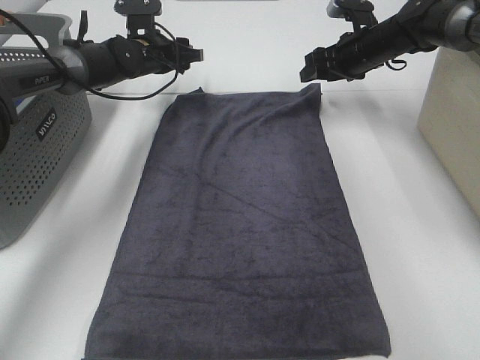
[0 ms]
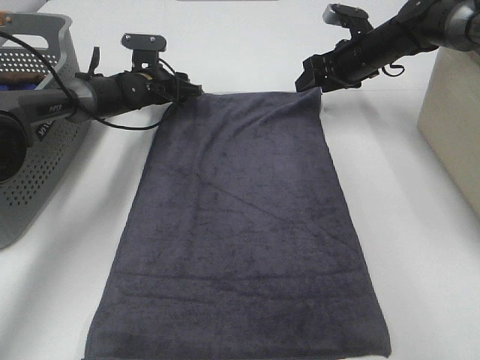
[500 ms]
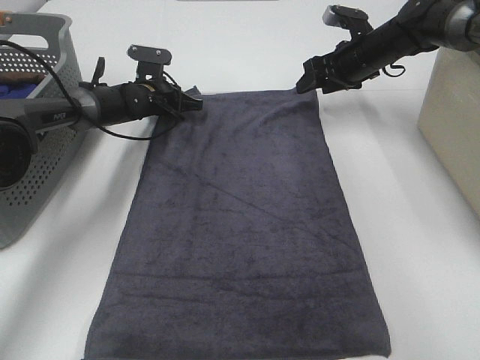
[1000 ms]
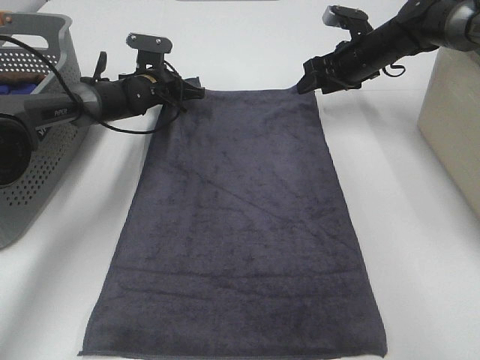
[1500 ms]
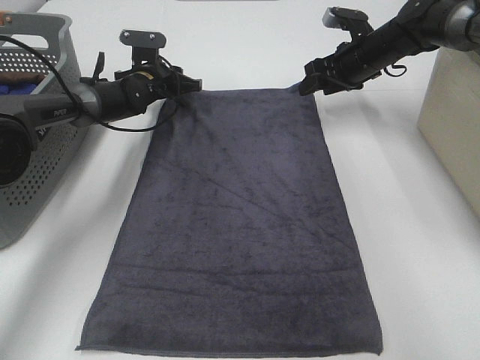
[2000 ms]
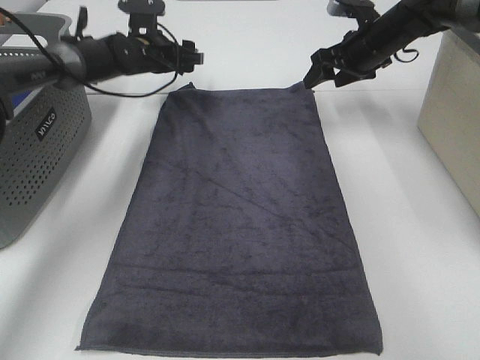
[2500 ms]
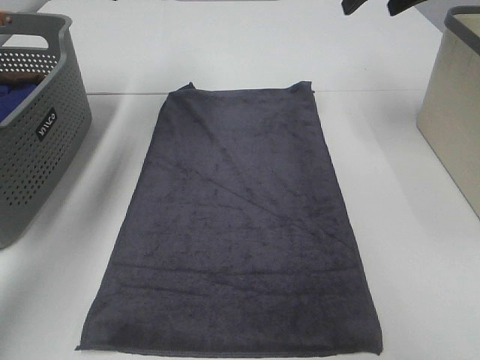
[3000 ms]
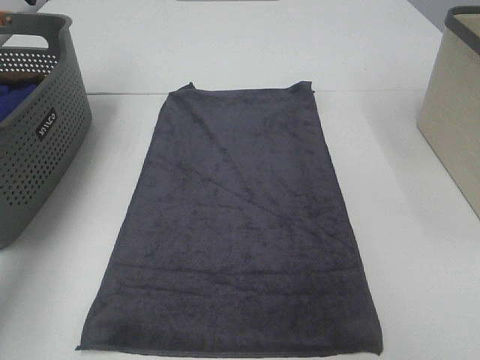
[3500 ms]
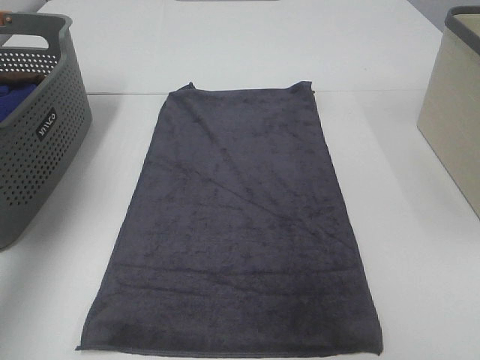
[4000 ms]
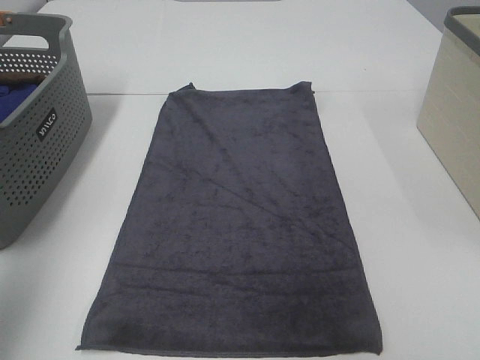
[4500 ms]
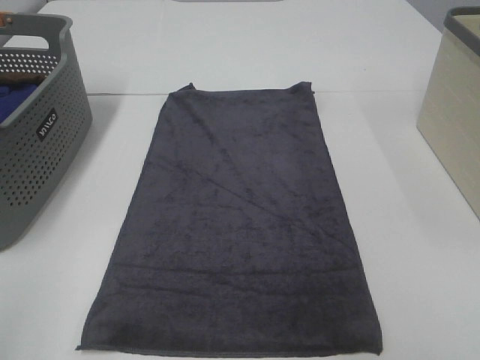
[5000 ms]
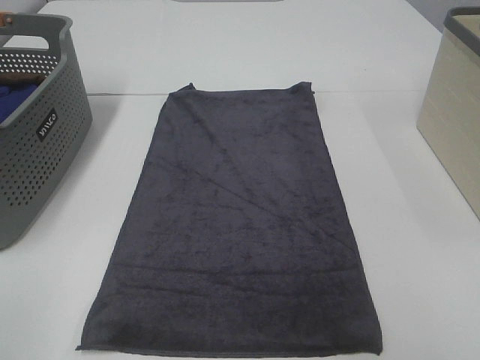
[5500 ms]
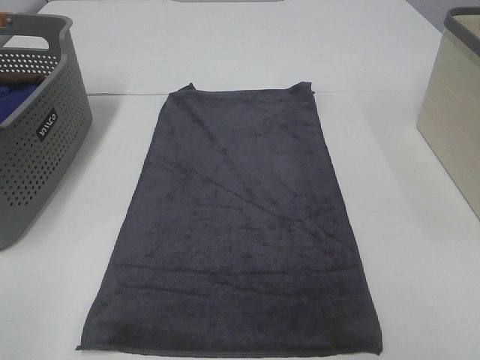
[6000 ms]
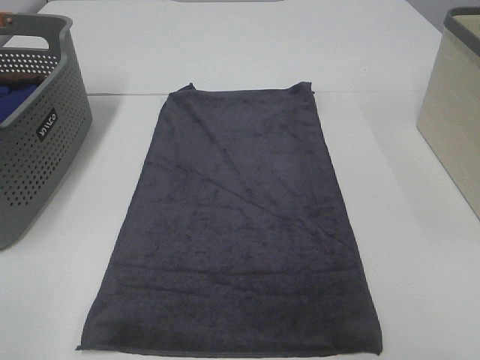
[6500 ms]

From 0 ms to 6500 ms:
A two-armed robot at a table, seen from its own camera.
Task of the whole recording: Remove the towel and place it.
From 0 ms to 2000 ms: The left gripper travels downward by about 5 cm, and closes, then reopens.
From 2000 ms to 4500 ms: The two grippers go roughly 50 cm backward and upward. The left gripper opens.
From 4500 ms to 6500 ms: The left gripper travels backward and downward by approximately 20 cm.

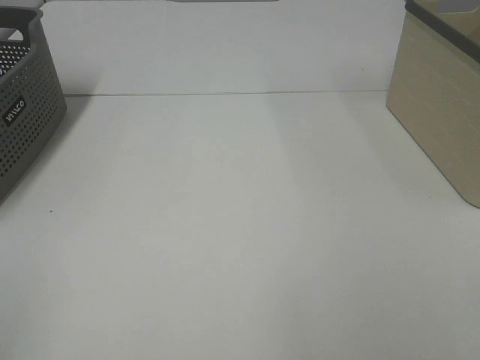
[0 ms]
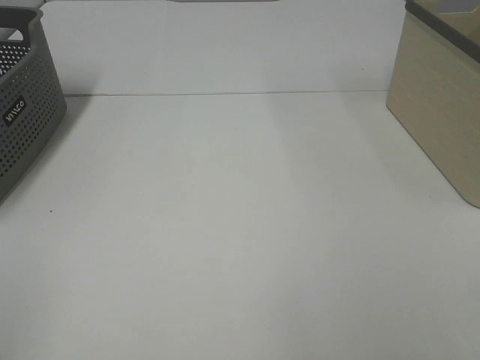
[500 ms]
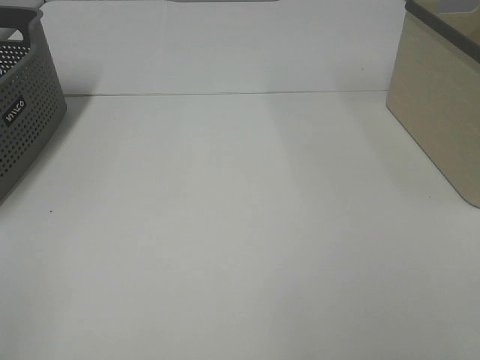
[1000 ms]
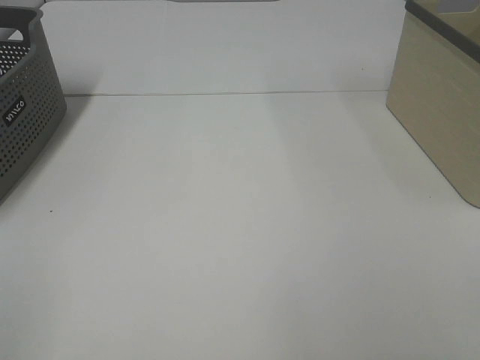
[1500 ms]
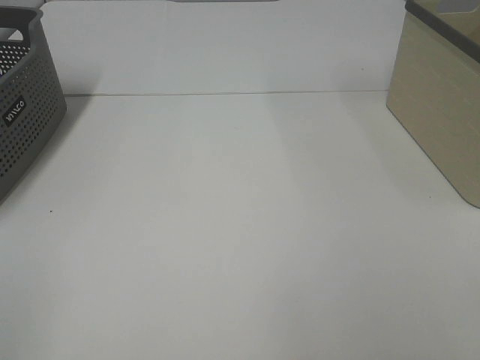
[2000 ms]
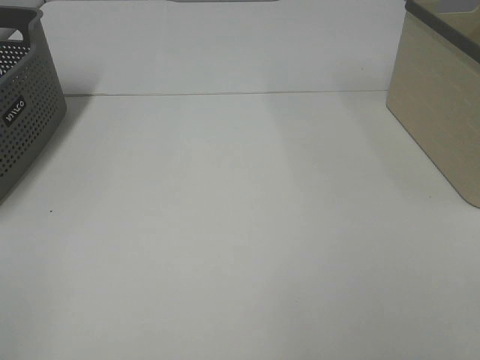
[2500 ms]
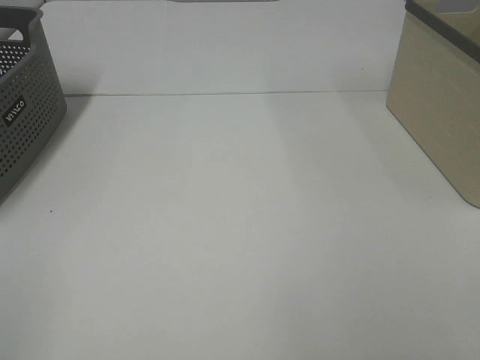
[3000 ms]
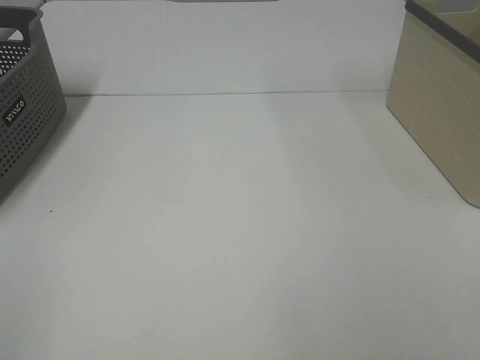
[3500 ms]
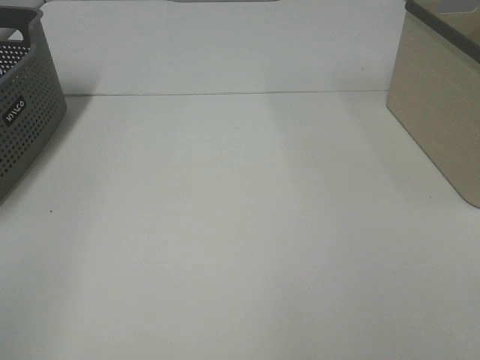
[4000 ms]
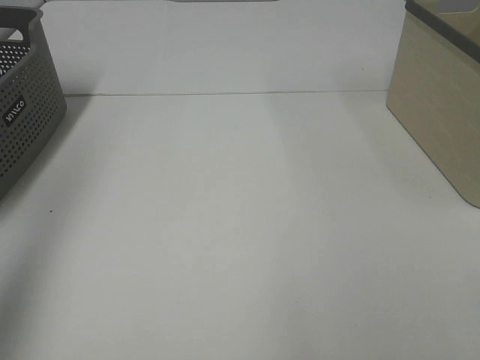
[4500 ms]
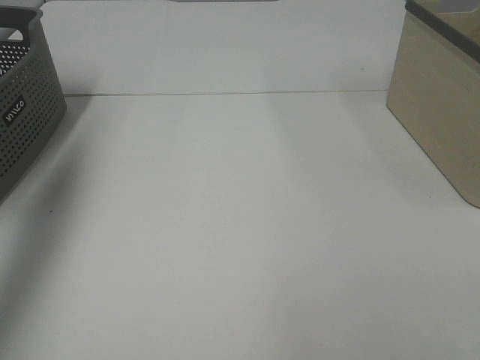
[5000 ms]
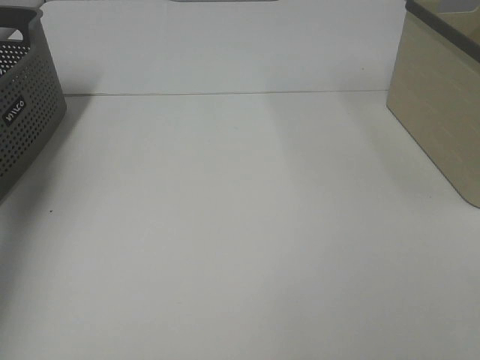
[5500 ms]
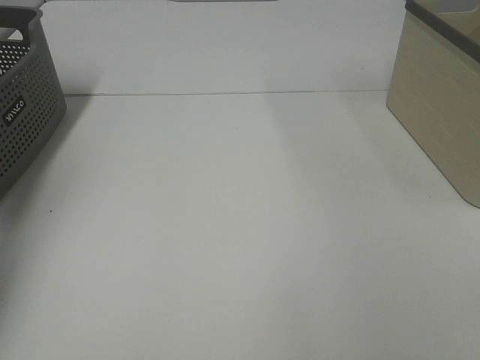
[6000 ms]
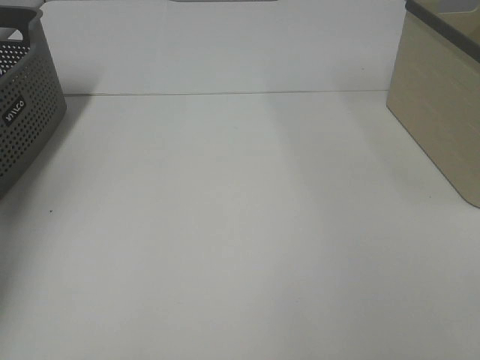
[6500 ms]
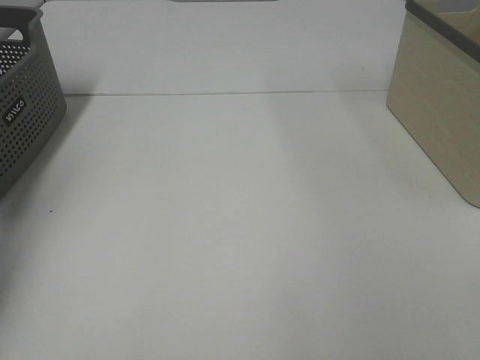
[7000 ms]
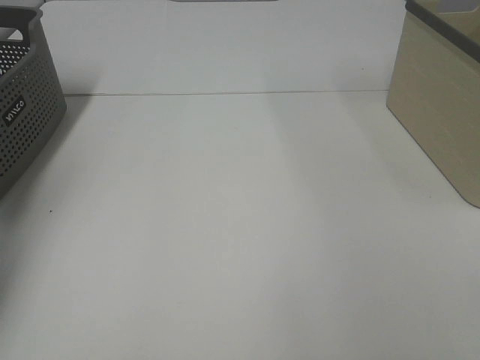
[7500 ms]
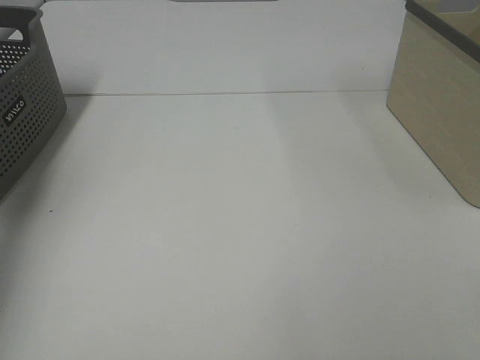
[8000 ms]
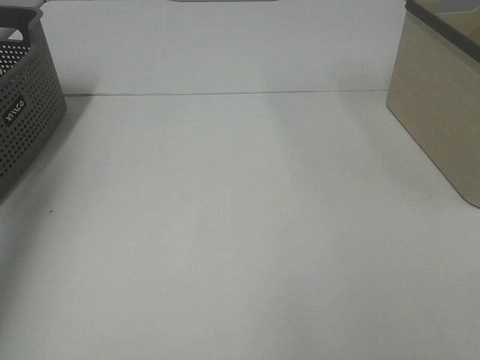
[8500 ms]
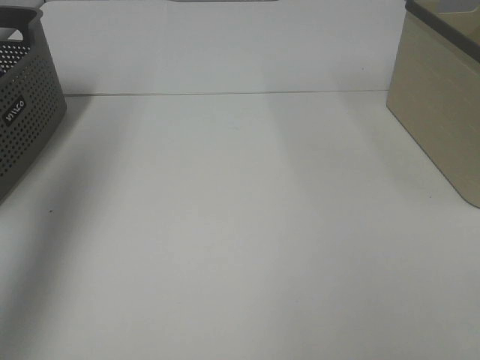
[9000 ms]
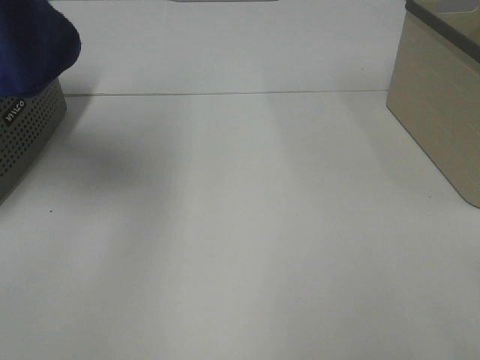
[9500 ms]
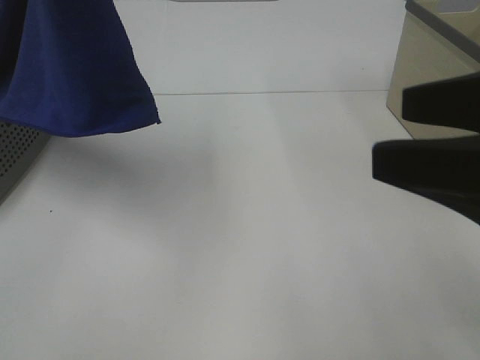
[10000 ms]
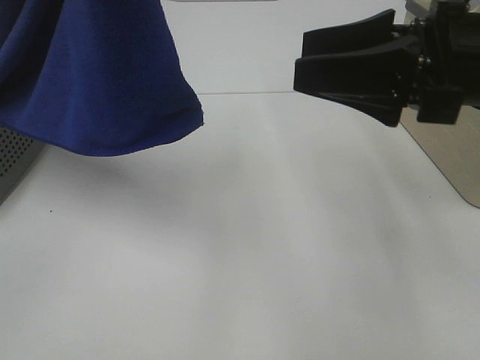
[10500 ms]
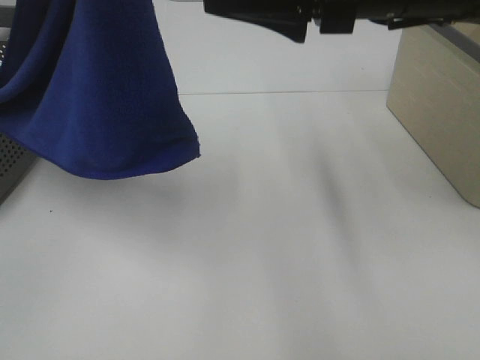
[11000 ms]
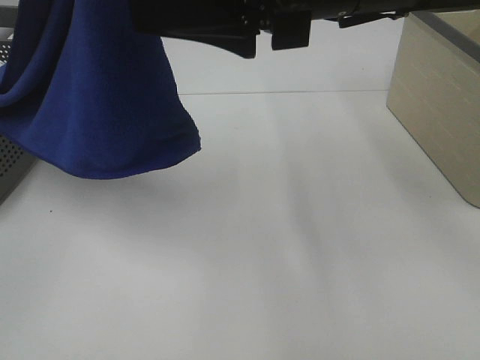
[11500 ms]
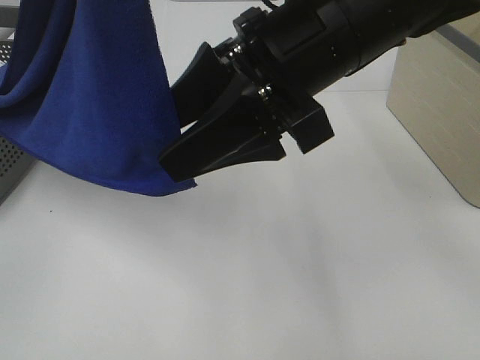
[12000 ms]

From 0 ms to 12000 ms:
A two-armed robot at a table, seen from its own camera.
Task of the whole recording: Remove the towel and place it.
From 0 ms to 2000 ms: Both grippers stay put.
From 4000 ms to 6000 ms: The left gripper shifts roughly 50 cm forward.
From 8000 ms to 10000 ms: The left gripper travels to the right, upward and backward by approximately 40 cm. Meanwhile the right gripper heads forward and to the left, covering some 15 cm.
From 10000 ms to 12000 ms: The right gripper moves to the left and forward, about 20 cm. Meanwhile the left gripper changes place by roughly 5 cm.

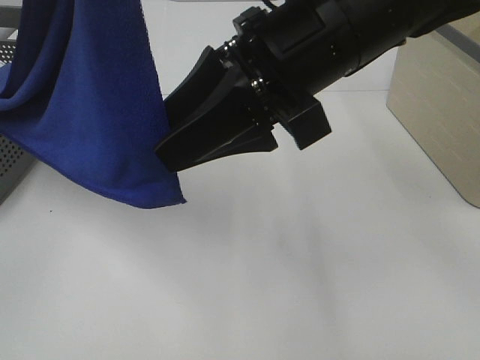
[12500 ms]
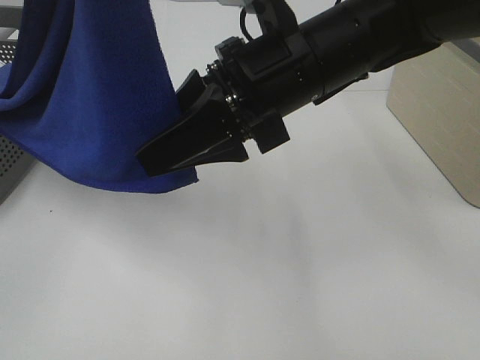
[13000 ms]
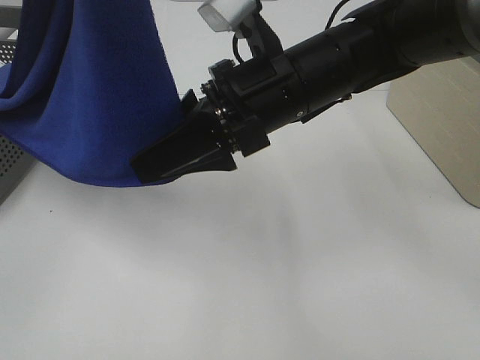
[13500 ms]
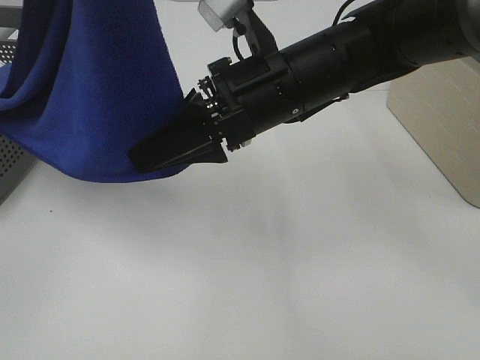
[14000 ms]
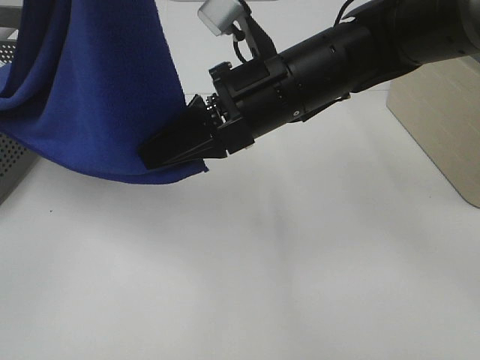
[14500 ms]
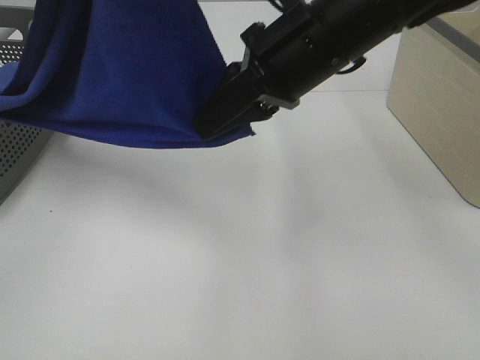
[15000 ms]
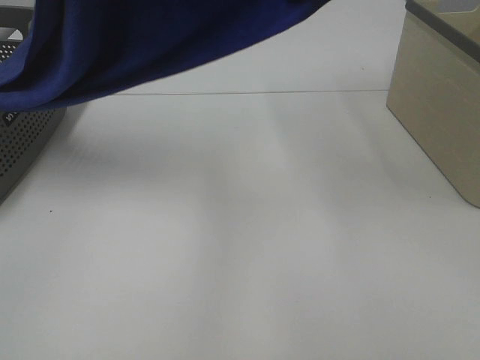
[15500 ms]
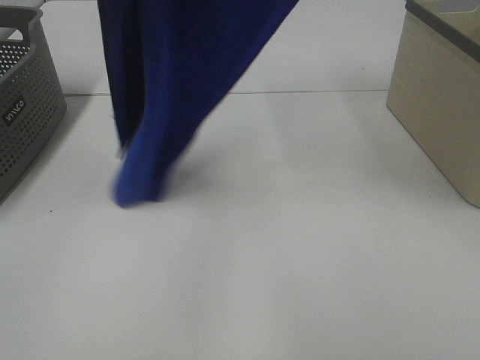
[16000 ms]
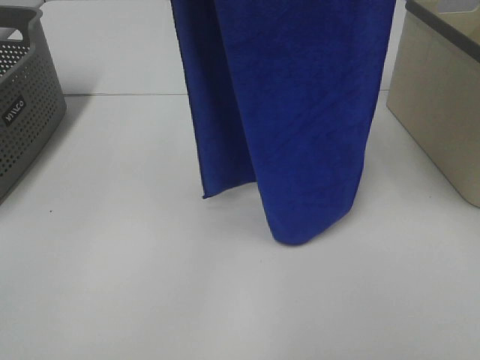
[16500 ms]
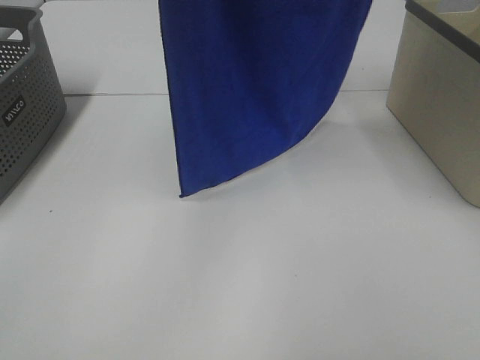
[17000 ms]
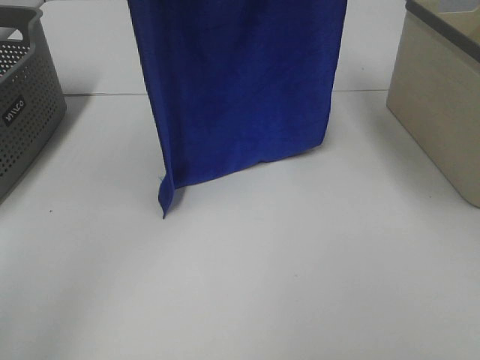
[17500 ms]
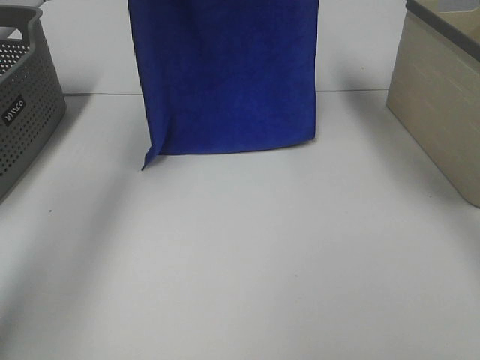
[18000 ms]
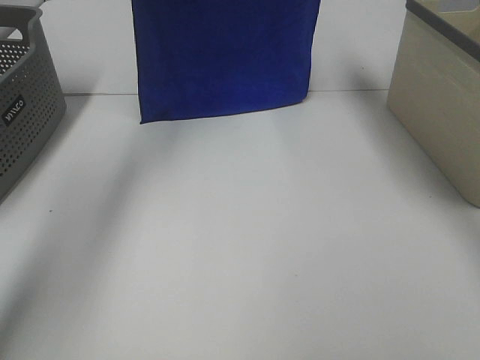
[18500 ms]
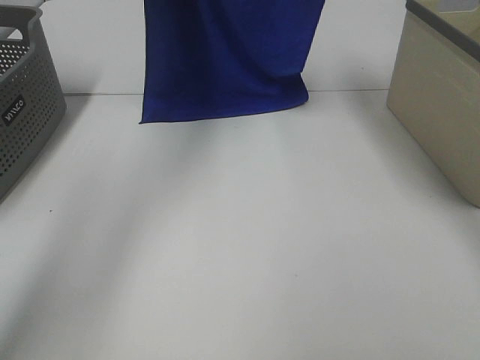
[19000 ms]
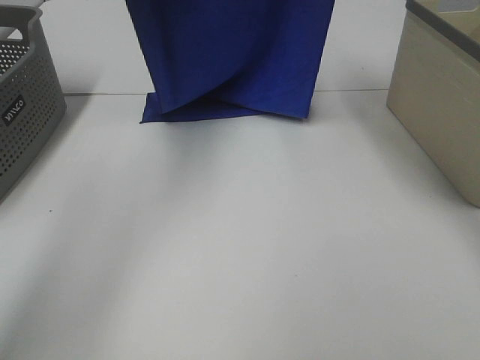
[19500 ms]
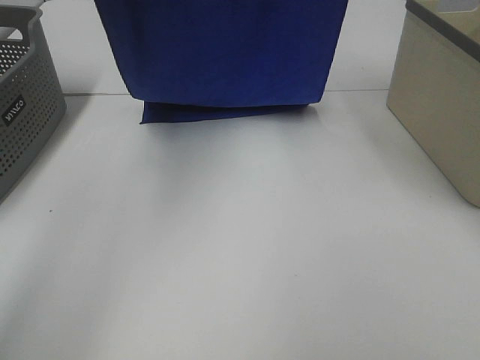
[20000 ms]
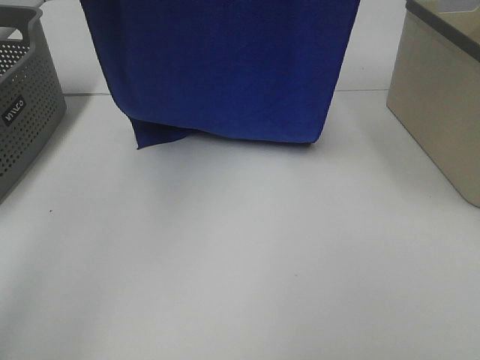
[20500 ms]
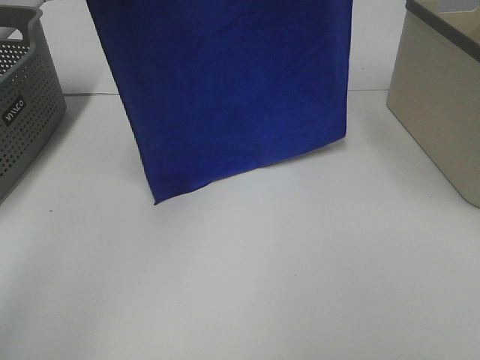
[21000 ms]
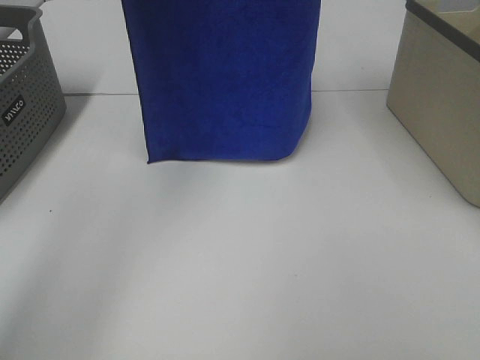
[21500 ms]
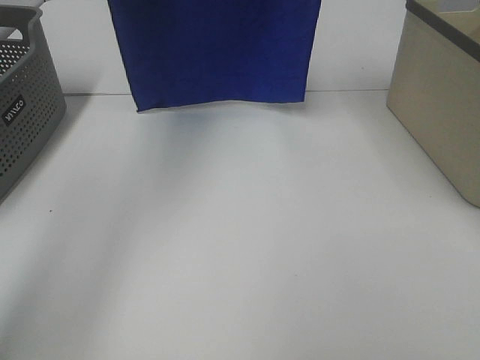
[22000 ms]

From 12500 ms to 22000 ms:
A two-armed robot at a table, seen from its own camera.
Task of the whole recording: Remove the towel and place it.
From 12500 ms to 14500 ms: The right gripper shifts about 5 cm downward, and closes.
From 14500 ms to 16500 ms: The left gripper is displaced forward by roughly 10 cm. The right gripper travels upward by approximately 30 cm.
From 16500 ms to 18000 ms: The right gripper heads forward, covering approximately 15 cm, while the left gripper heads forward, covering some 20 cm.
From 18000 ms to 20000 ms: The grippers both shift backward by about 10 cm.
From 20000 ms to 22000 ms: The left gripper moves forward, some 5 cm.
